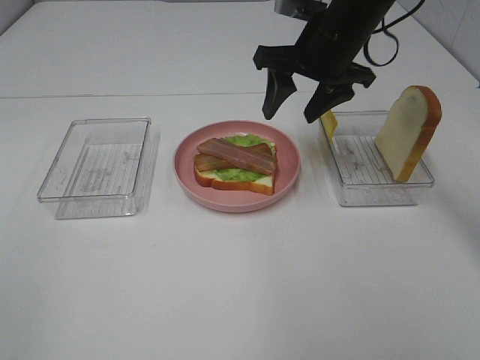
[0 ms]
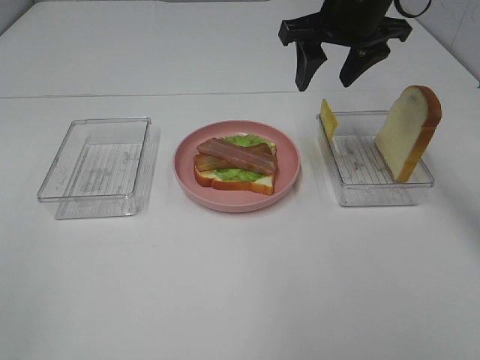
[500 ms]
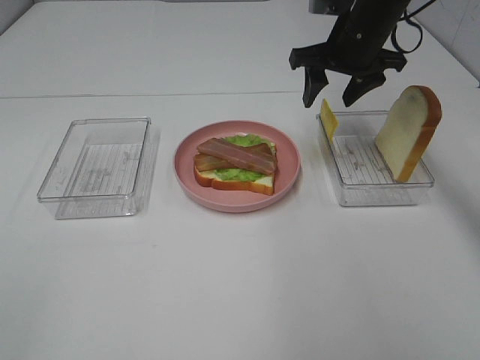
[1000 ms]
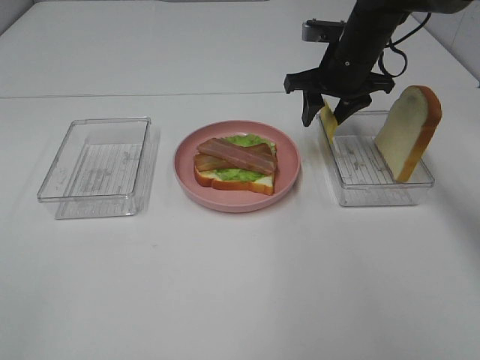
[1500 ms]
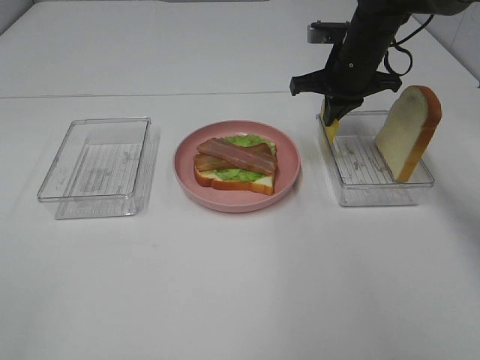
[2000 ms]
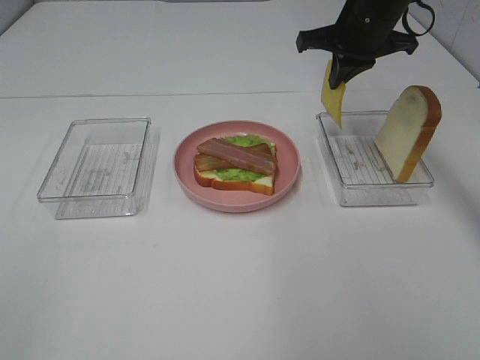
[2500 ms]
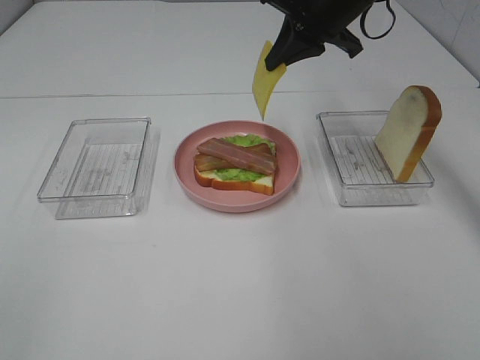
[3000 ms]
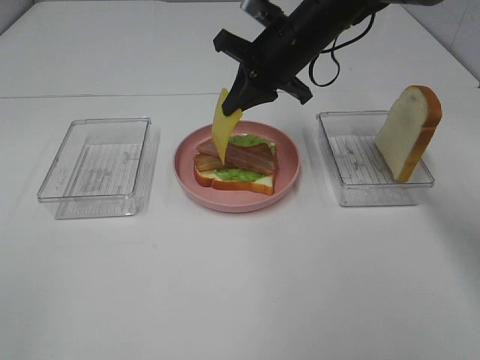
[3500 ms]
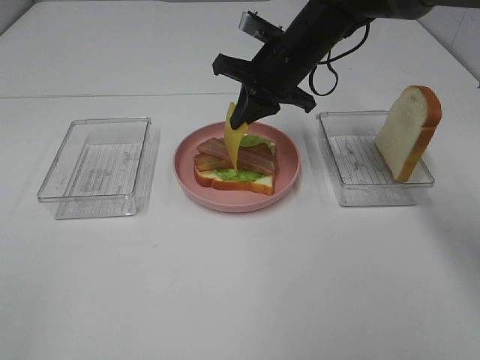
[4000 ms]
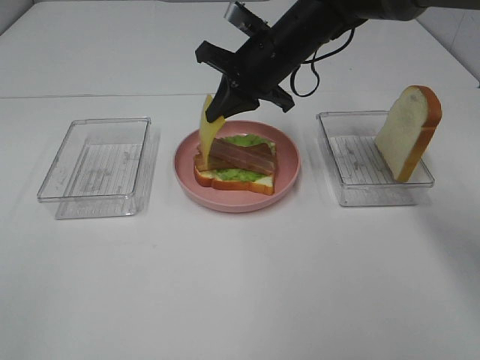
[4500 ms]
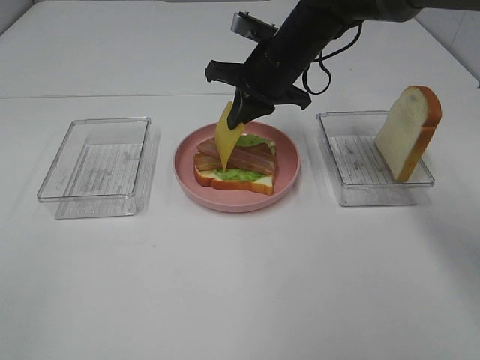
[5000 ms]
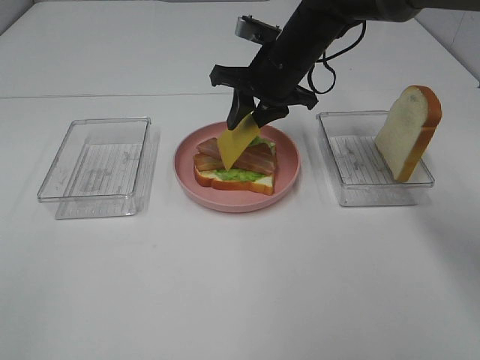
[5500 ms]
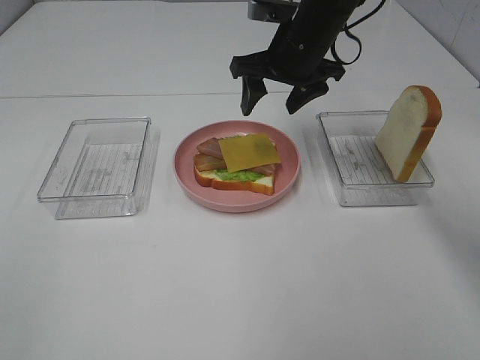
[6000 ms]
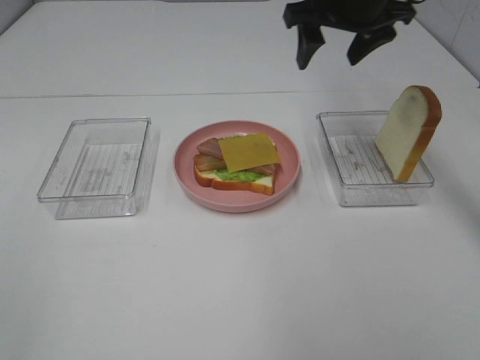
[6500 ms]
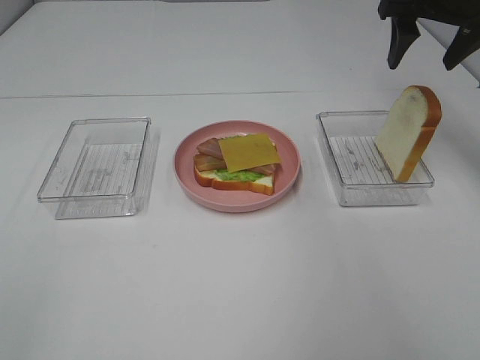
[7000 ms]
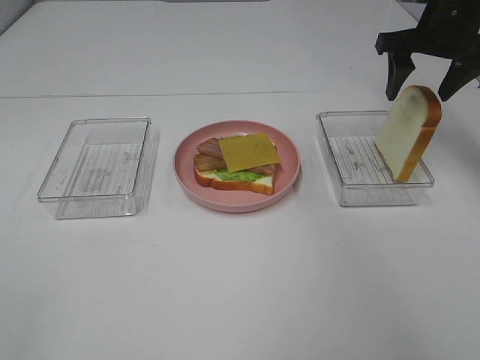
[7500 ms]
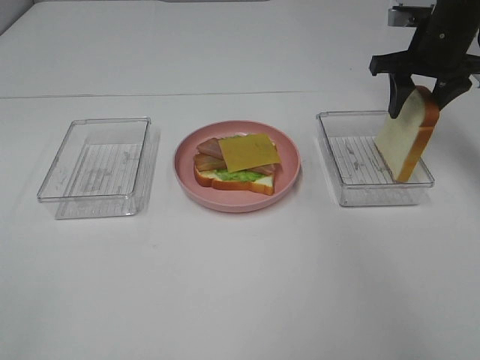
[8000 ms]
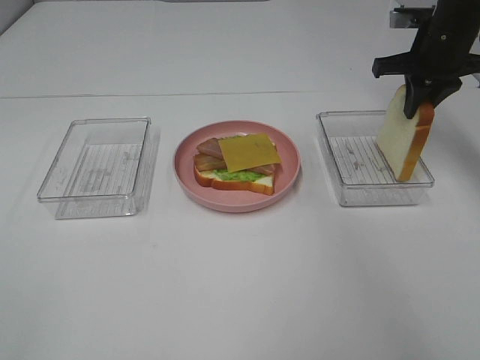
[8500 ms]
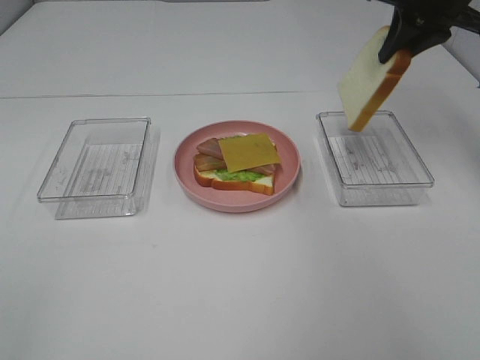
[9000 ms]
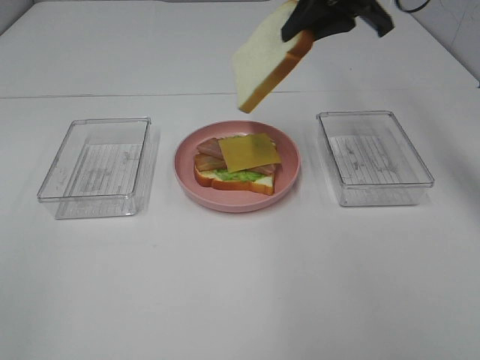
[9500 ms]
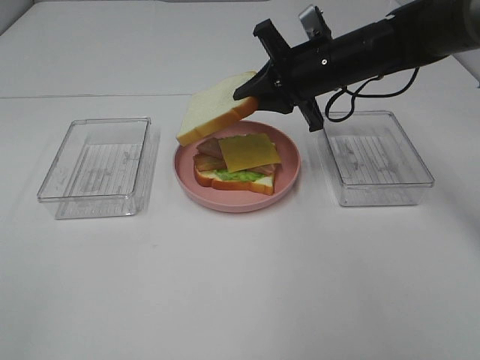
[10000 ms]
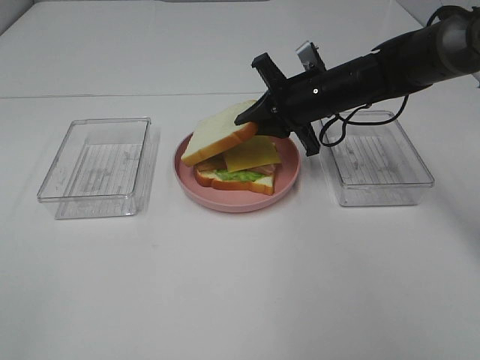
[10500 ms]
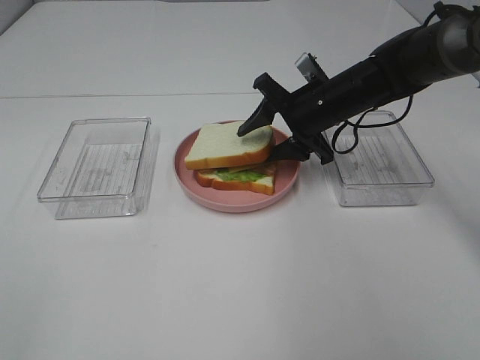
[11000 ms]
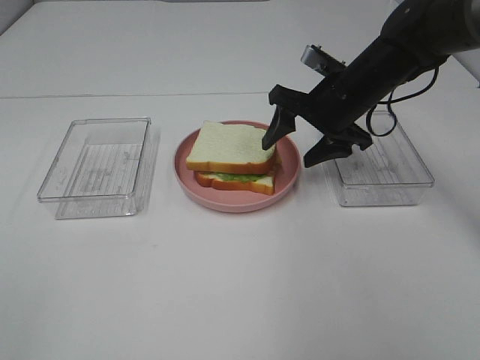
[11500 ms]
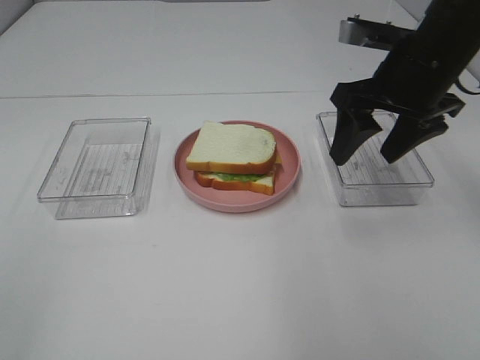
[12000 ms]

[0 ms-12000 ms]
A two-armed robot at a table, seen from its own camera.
Task of the whole recording: Make sandwiches.
Step, 0 ms to 1500 ms: Right hand:grab the cheese slice.
Step, 2000 ms to 6000 ms: Right hand:place the cheese slice on top of the bacon.
Step, 6500 ms to 8000 ms: Right hand:grab the bread slice.
Step, 8500 ms to 11500 ms: Right hand:place the bread slice on the cheese slice.
0 ms to 2000 ms: The right gripper goes some 10 cm forward and downward, and closes its fingers.
2000 ms to 4000 ms: The right gripper heads to the left, covering about 10 cm, and reaches some 10 cm upward, then returns.
4000 ms to 6000 ms: The right gripper opens up.
6000 ms to 8000 ms: The right gripper heads to the right, covering roughly 20 cm.
8000 ms to 10000 ms: The right gripper moves to the left, about 15 cm, and closes its fingers.
10000 ms to 12000 ms: The right gripper heads backward, upward and to the right, covering about 15 cm, and opens up.

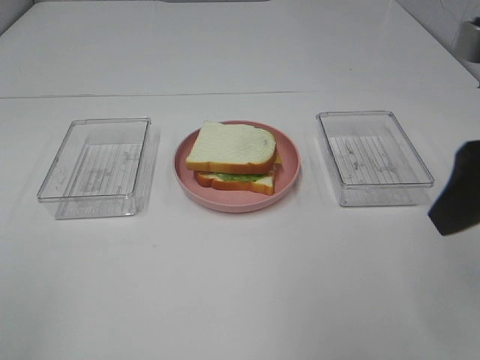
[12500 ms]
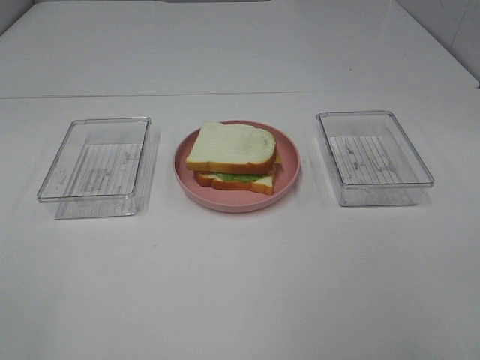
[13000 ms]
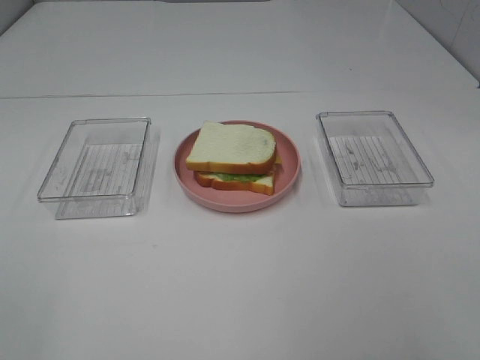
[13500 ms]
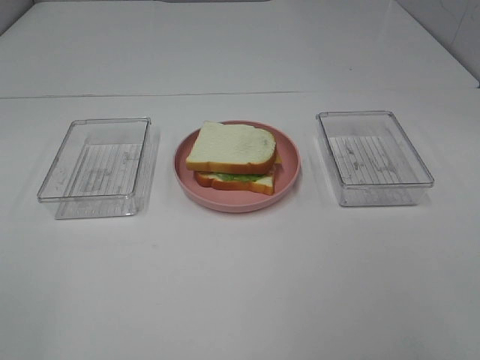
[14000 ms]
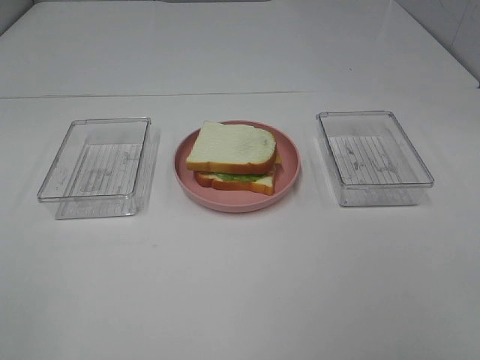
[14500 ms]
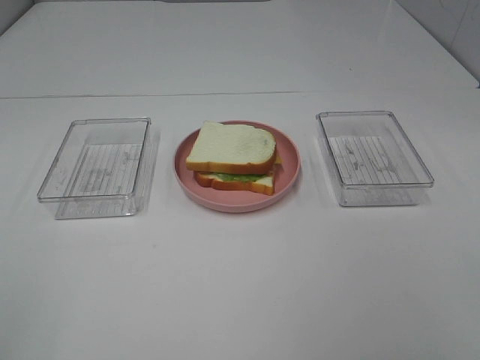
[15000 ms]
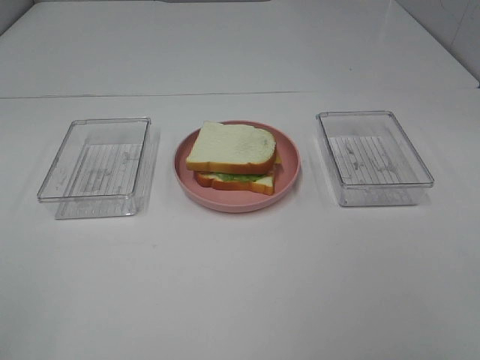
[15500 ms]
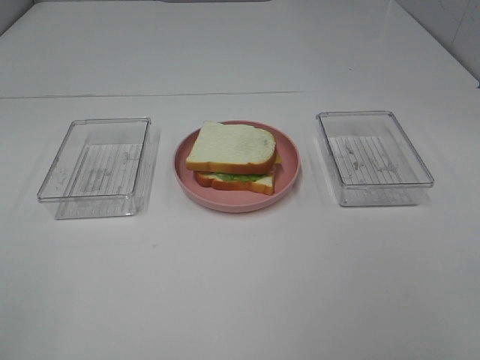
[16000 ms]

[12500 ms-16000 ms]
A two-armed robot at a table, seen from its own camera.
Task of the whole recording: Make sandwiches.
12500 ms to 14500 ms: The right gripper travels backward by some 15 cm.

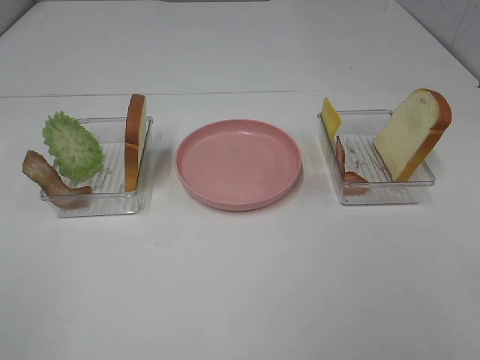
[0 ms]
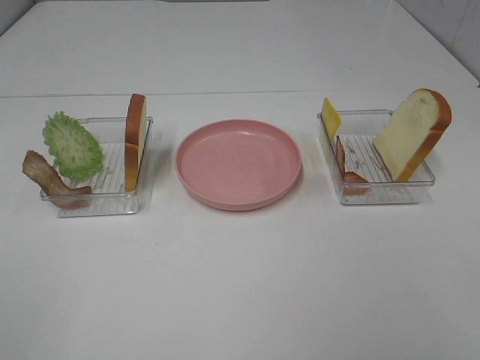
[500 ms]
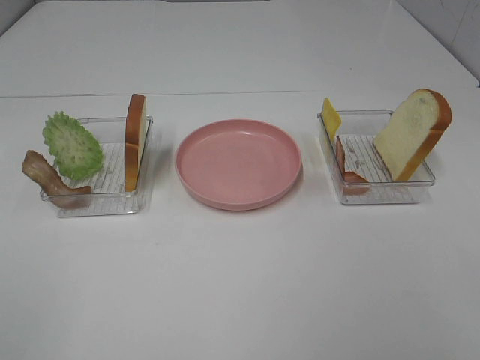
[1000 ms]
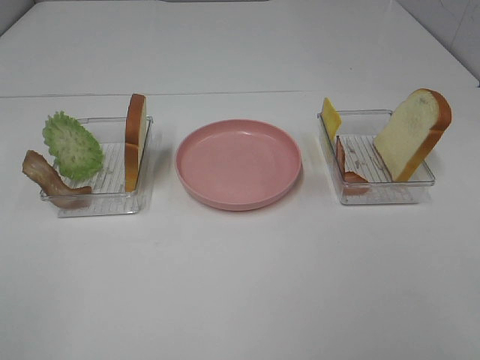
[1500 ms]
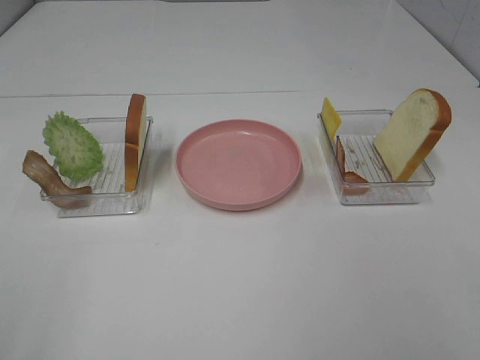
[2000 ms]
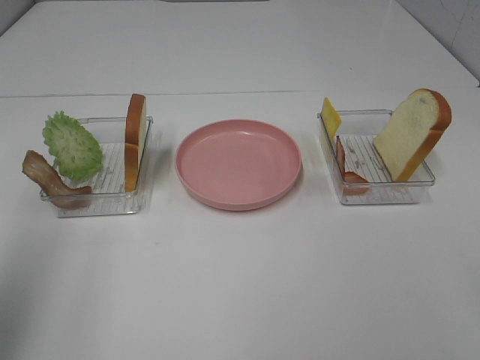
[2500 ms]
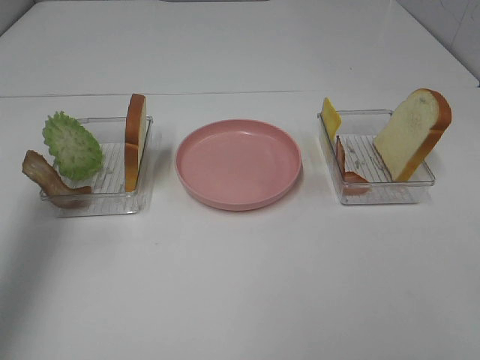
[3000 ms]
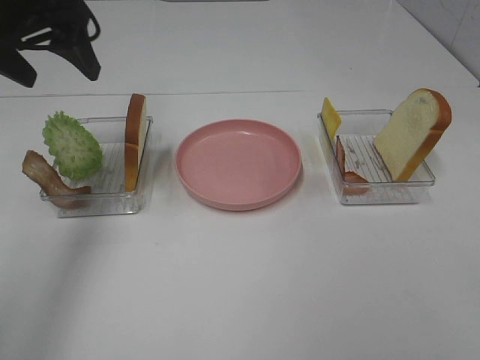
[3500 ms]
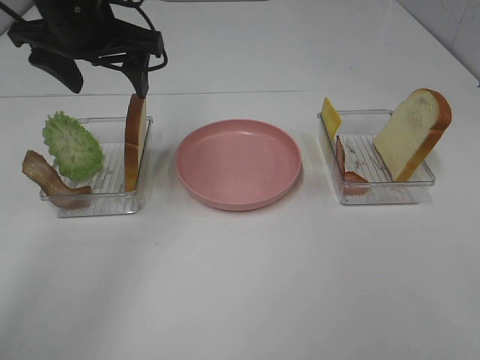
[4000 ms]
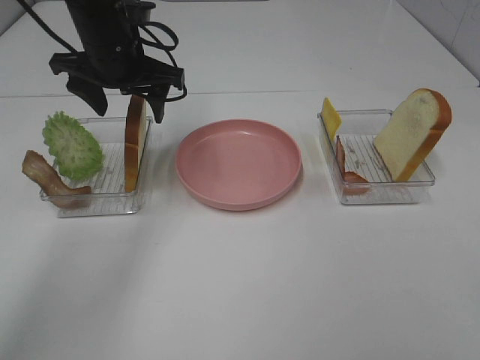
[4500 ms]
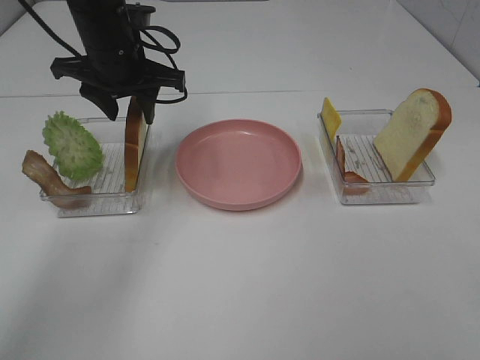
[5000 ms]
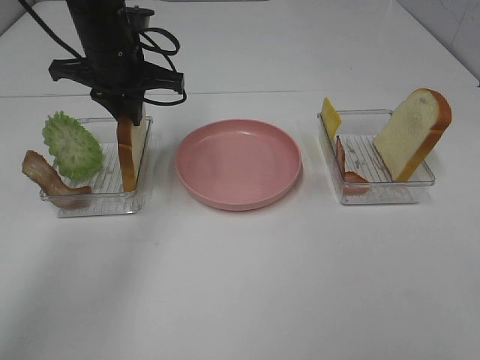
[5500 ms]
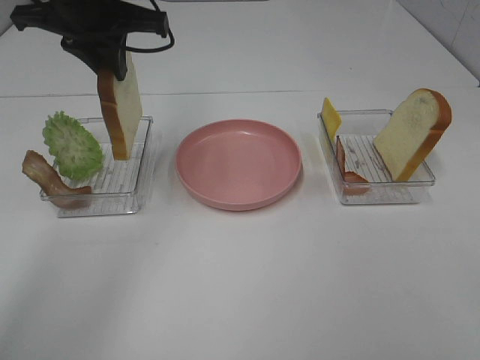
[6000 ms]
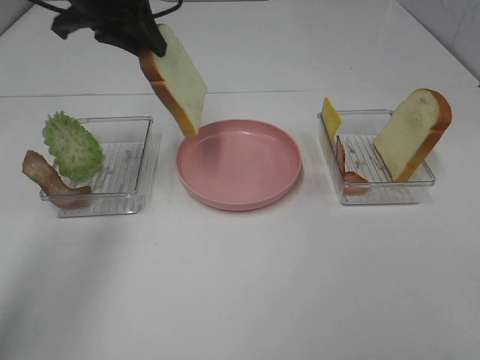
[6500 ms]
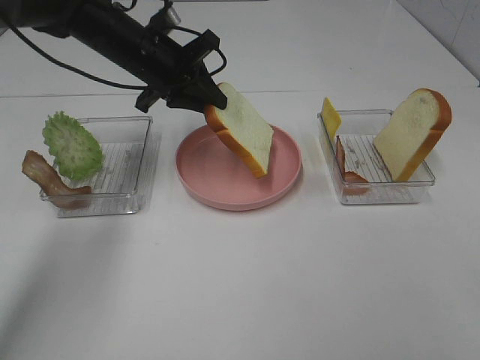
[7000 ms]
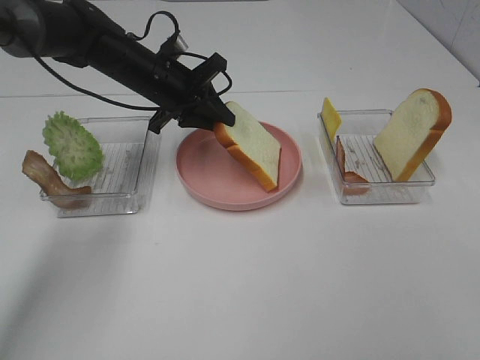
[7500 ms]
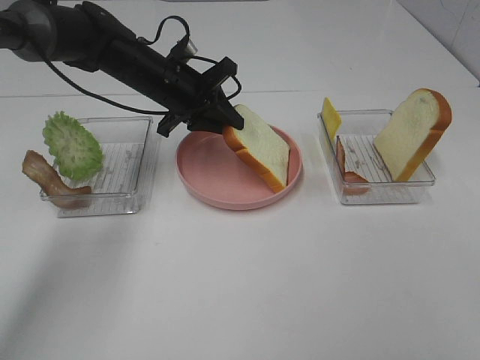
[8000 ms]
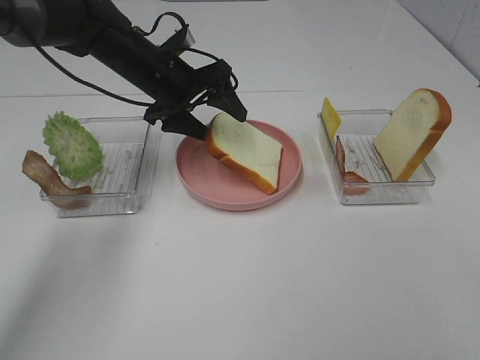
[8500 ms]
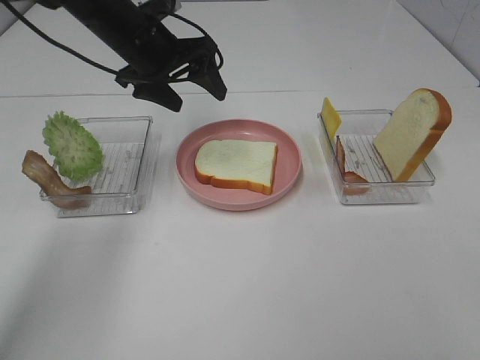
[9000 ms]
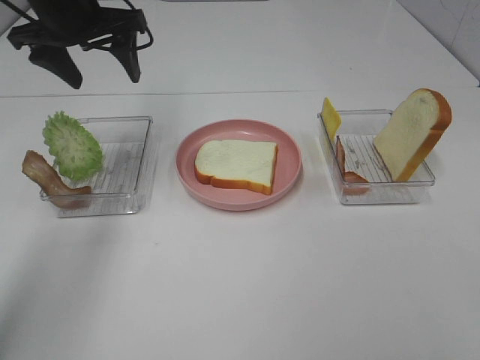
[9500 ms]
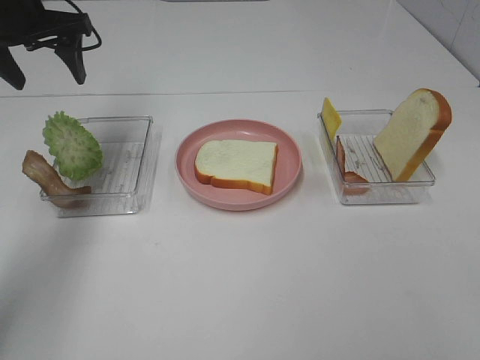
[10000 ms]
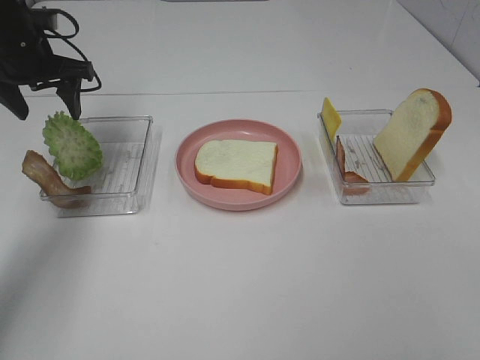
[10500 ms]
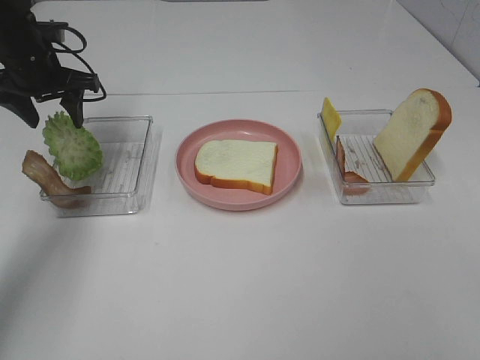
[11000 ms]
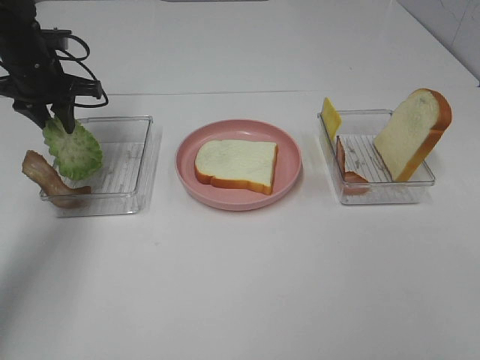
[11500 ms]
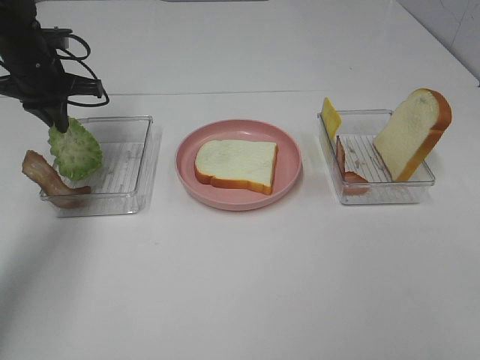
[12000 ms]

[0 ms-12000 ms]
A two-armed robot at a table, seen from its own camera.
Task of the whole recording: Make sandwiches.
Step, 0 ms to 5000 ms: Left hand:grab the bread slice.
Step, 5500 ms to 8500 ms: Left hand:place the bread slice on the plate.
Step, 9000 ms to 12000 ms: Left hand:grab the lettuce slice.
2000 ms to 4000 ms: The left gripper shifts approximately 40 cm forward.
4000 ms to 6000 ms: The left gripper goes downward and returns, some 5 cm each way, and closes.
6000 ms to 8000 ms: The left gripper shifts roughly 15 cm downward and forward.
8000 ms to 10000 ms: The left gripper heads to the left and upward, covering some 20 cm, and opens its fingers.
10000 ms to 12000 ms: The left gripper shifts approximately 10 cm downward, and closes its fingers.
